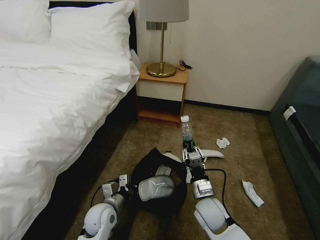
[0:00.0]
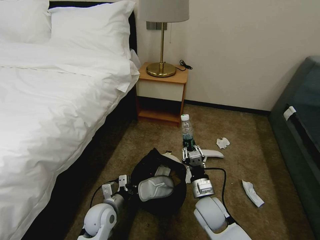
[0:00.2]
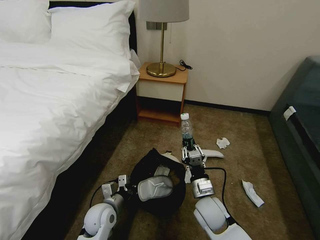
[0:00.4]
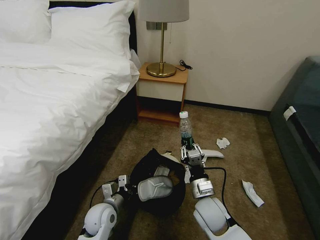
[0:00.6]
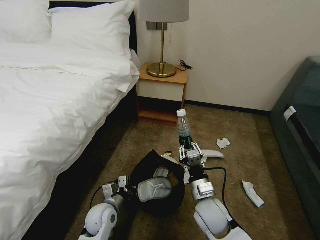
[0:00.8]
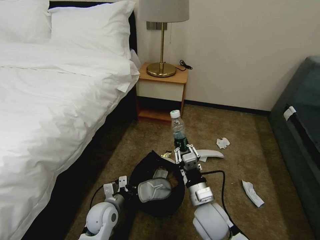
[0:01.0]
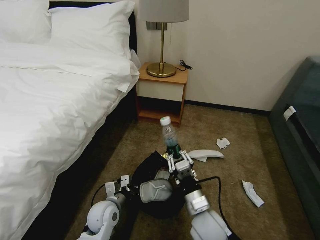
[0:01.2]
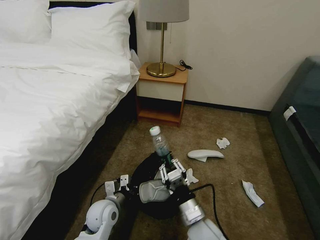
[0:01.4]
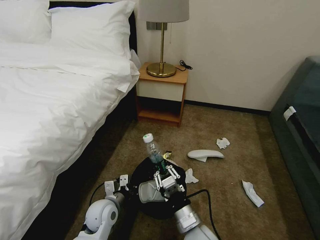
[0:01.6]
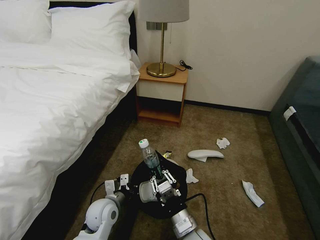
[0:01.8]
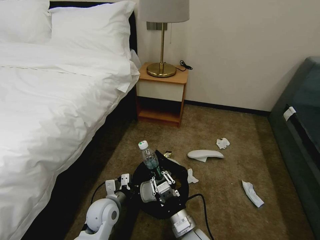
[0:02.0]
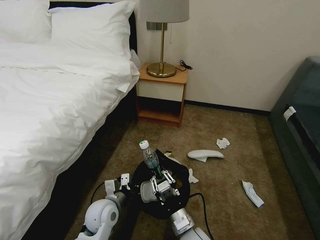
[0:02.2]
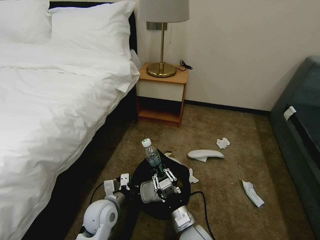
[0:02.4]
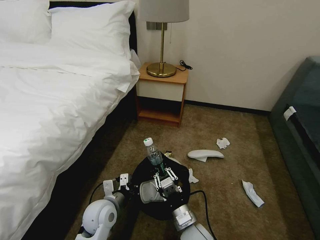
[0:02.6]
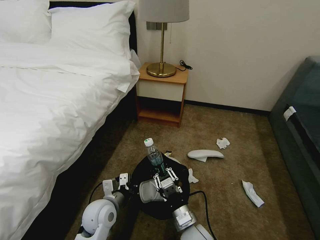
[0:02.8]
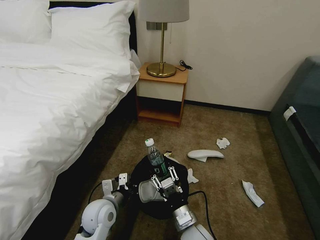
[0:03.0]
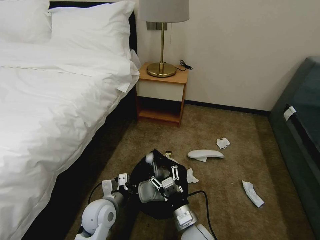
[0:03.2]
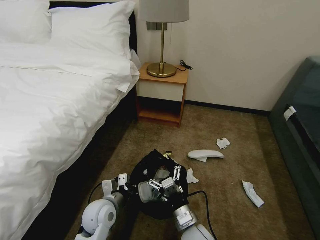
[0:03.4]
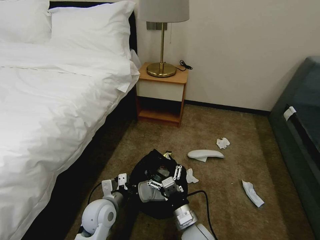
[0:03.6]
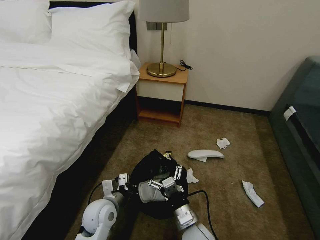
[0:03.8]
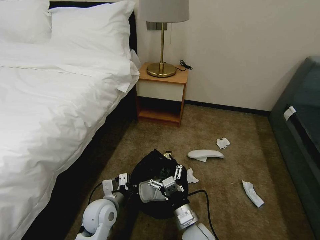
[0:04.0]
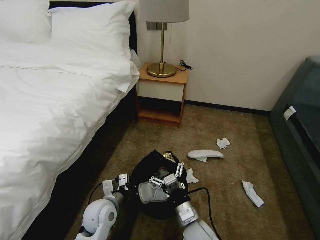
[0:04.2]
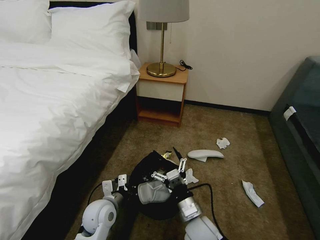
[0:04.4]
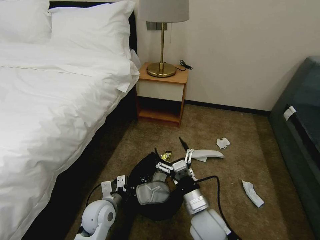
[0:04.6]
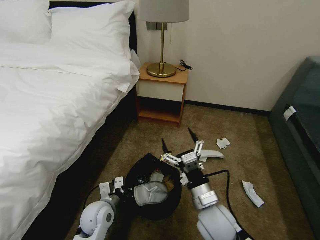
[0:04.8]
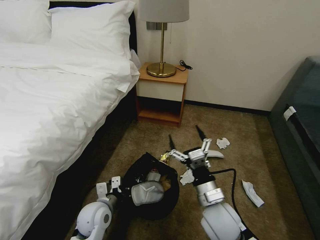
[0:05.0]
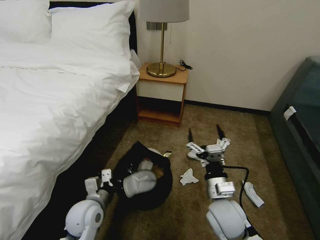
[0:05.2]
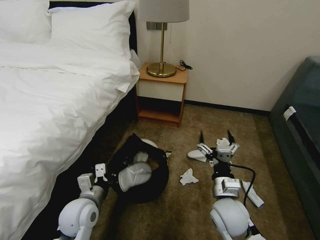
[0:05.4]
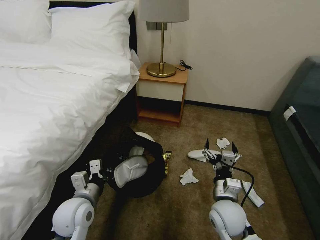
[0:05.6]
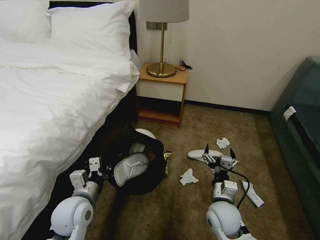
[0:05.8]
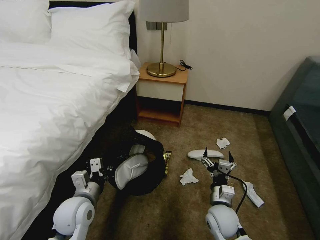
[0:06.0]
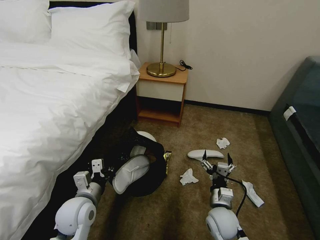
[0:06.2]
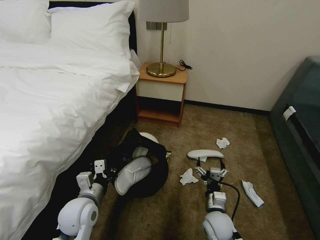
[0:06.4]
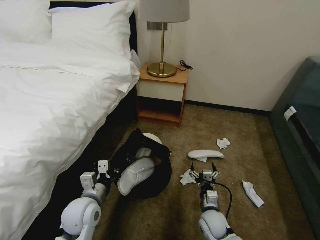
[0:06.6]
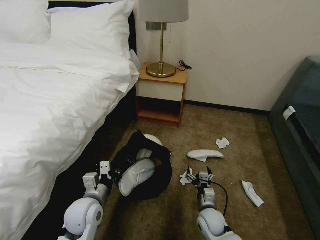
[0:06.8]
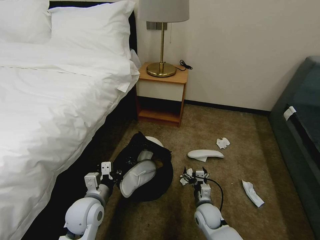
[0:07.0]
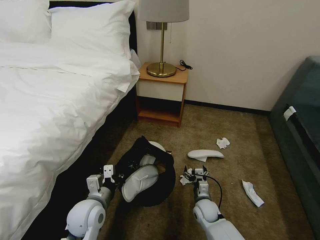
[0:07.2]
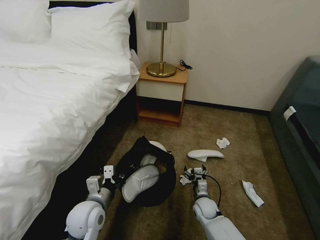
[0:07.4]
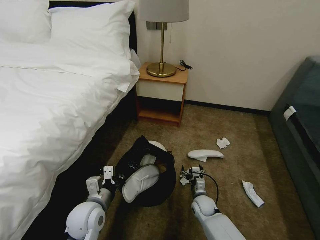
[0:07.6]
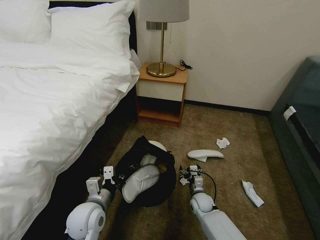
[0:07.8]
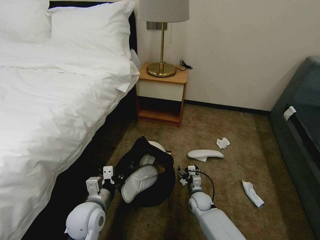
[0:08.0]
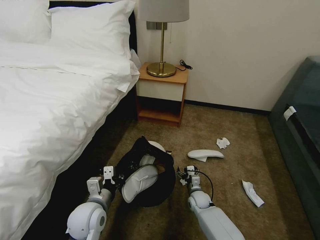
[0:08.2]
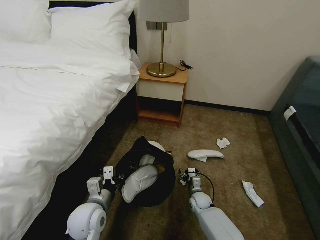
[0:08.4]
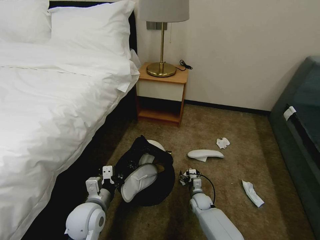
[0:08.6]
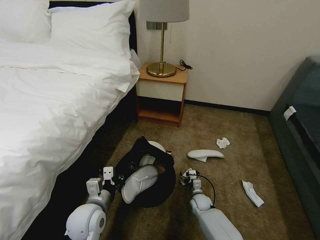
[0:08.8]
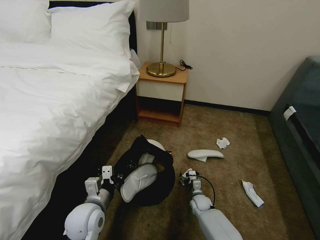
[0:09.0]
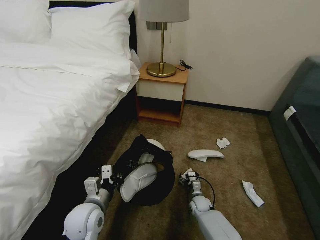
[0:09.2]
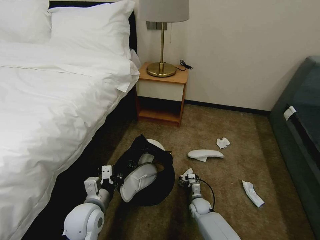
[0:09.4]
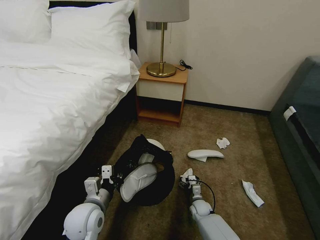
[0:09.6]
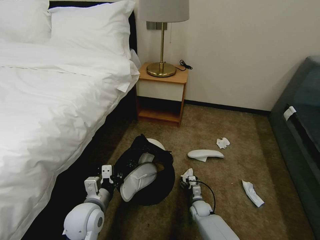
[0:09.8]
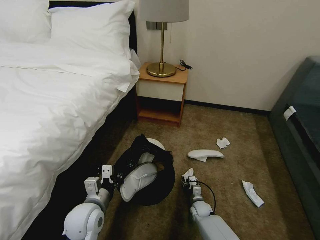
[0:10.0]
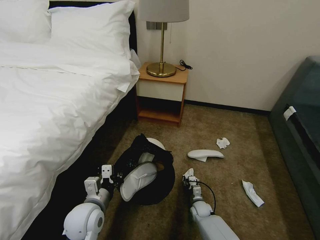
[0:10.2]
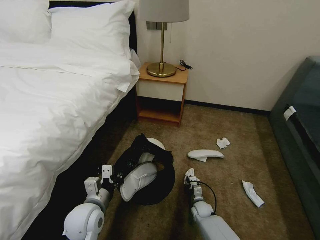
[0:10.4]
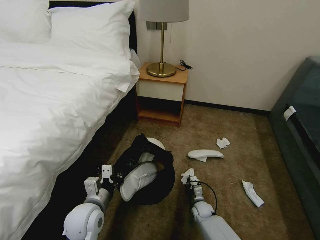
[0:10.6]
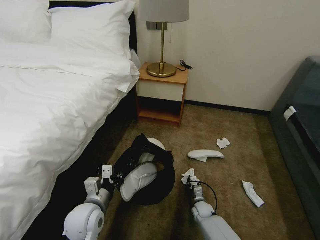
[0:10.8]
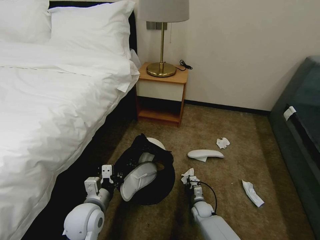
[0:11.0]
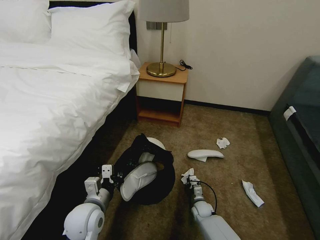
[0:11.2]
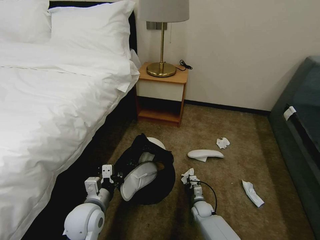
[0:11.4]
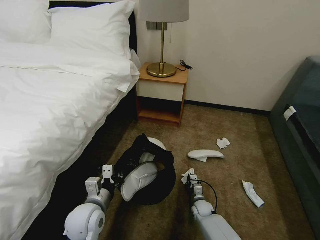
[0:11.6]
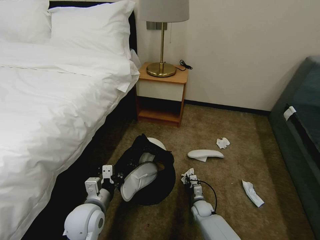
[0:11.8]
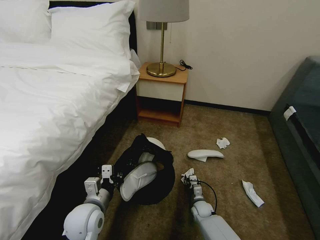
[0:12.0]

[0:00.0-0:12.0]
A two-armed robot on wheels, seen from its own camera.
Task of the whole recording: Pick up the trash bin, then pick up the garbage on the floor and place it into the trash bin.
0:00.0 to 0:01.6: The right gripper heads backward and to the left, covering some 10 cm.
0:01.6 to 0:03.0: There are only small adjustments of the grippers.
0:03.0 to 0:04.4: The right gripper opens its fingers.
0:04.4 to 0:06.0: The left gripper moves upward and to the left, approximately 10 cm. Meanwhile the right gripper is displaced to the right by roughly 10 cm, and reaches about 5 cm upward, then returns.
0:06.0 to 0:07.6: The right gripper moves downward and forward, roughly 15 cm.
0:07.6 to 0:09.0: The right gripper goes about 5 cm downward.
0:09.0 to 0:10.4: The right gripper closes its fingers.
0:10.4 to 0:12.0: Both grippers stay about where they are.

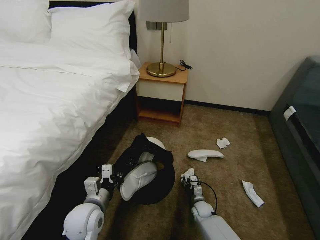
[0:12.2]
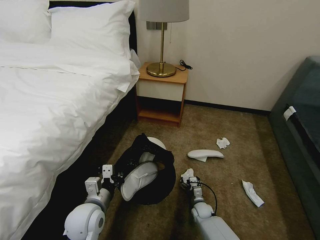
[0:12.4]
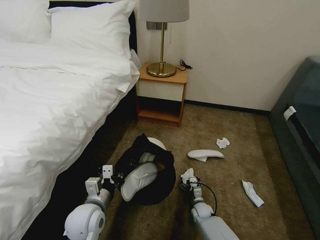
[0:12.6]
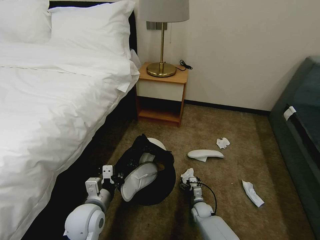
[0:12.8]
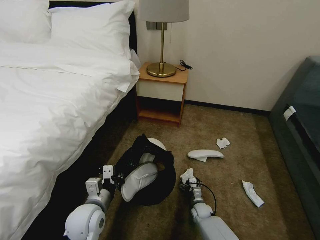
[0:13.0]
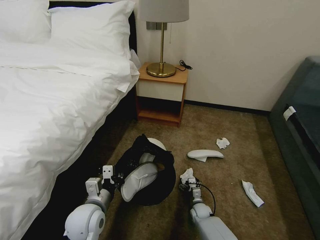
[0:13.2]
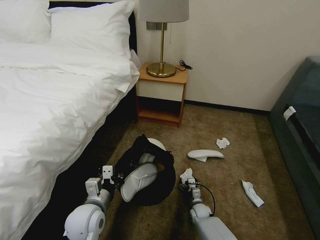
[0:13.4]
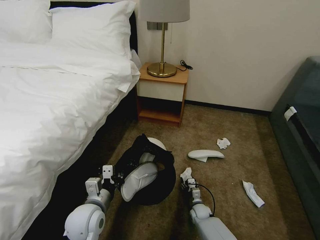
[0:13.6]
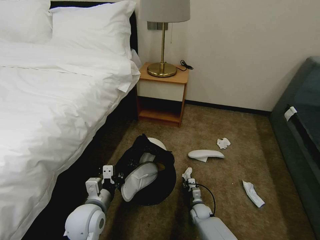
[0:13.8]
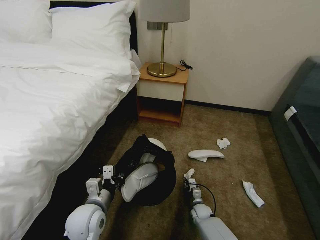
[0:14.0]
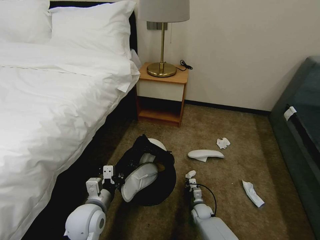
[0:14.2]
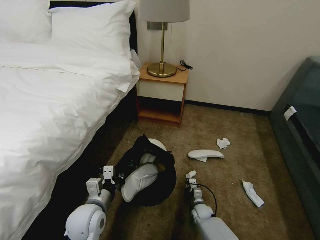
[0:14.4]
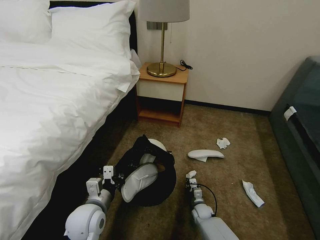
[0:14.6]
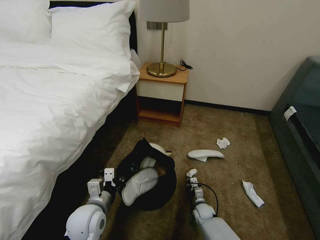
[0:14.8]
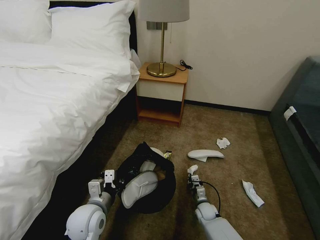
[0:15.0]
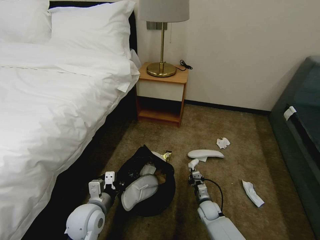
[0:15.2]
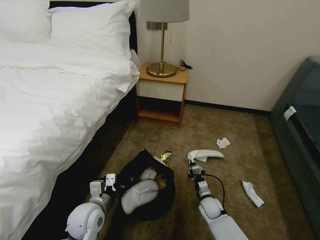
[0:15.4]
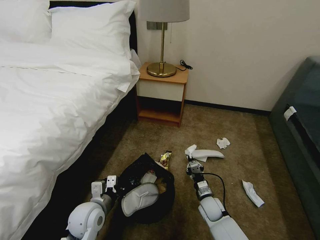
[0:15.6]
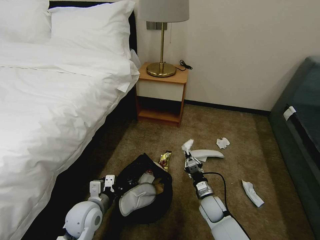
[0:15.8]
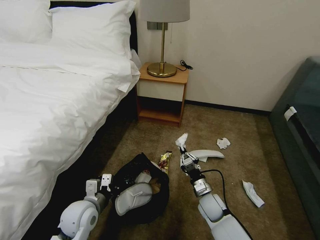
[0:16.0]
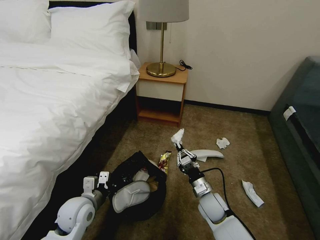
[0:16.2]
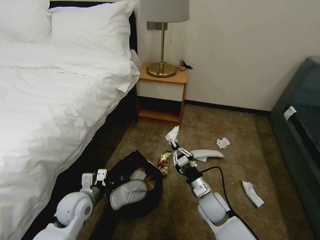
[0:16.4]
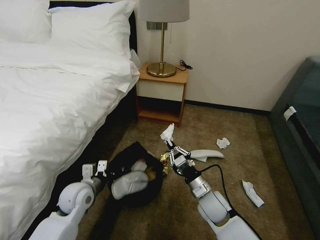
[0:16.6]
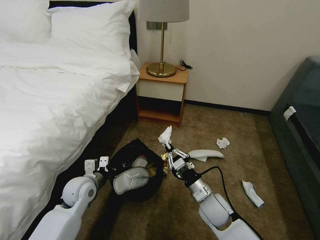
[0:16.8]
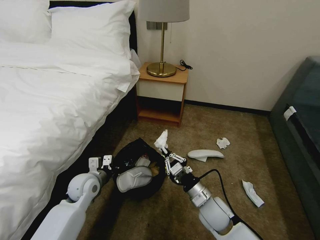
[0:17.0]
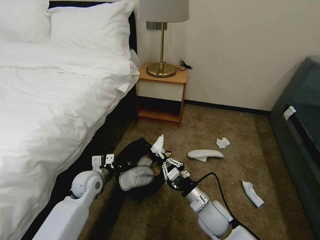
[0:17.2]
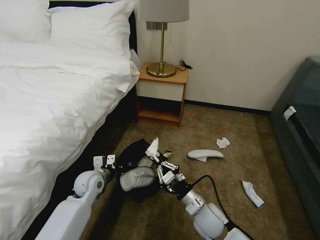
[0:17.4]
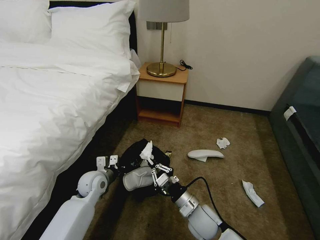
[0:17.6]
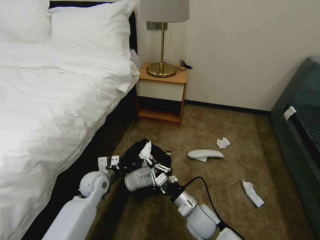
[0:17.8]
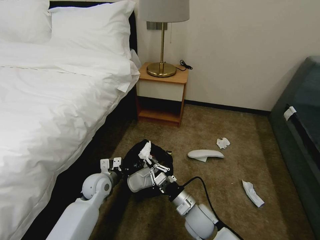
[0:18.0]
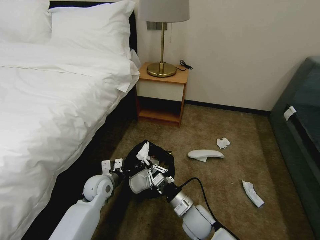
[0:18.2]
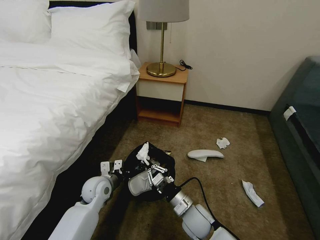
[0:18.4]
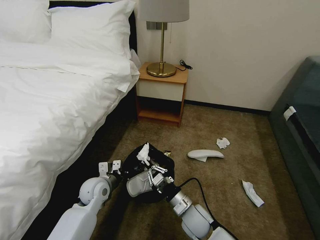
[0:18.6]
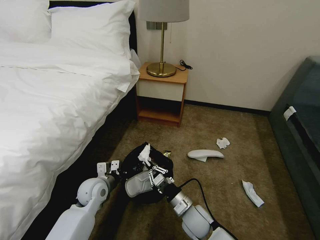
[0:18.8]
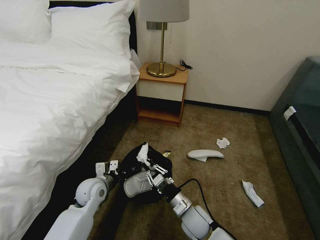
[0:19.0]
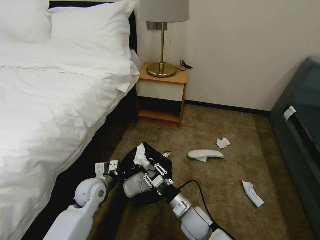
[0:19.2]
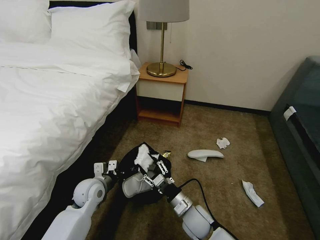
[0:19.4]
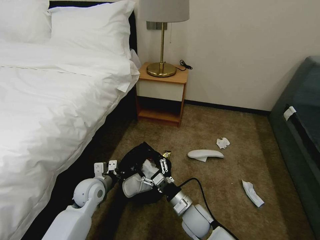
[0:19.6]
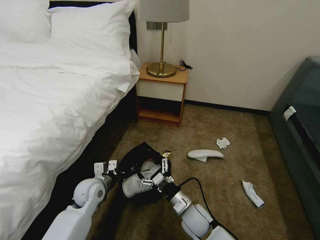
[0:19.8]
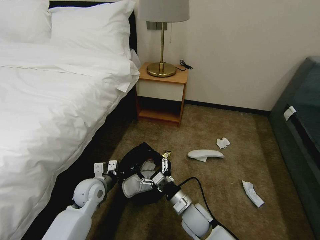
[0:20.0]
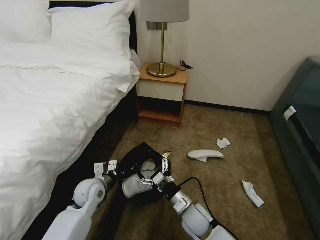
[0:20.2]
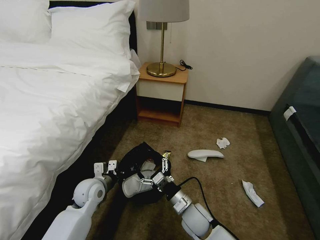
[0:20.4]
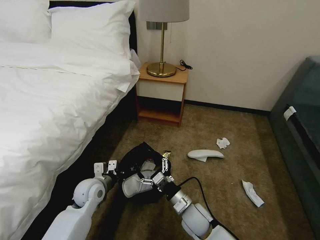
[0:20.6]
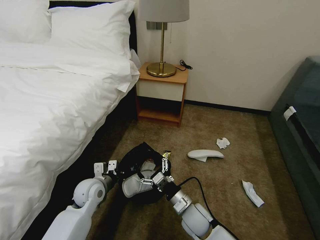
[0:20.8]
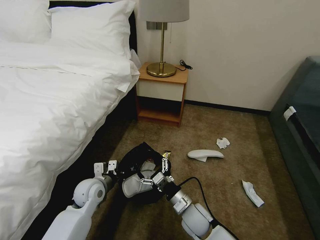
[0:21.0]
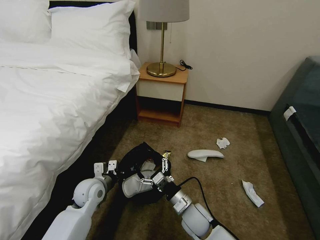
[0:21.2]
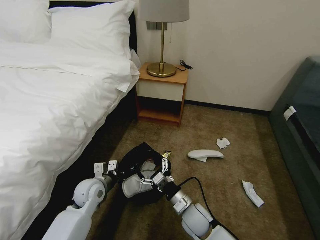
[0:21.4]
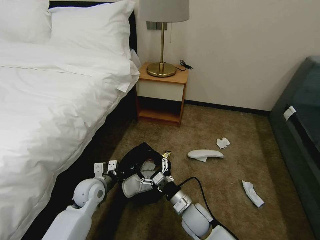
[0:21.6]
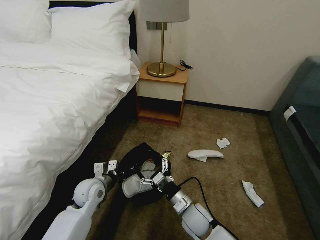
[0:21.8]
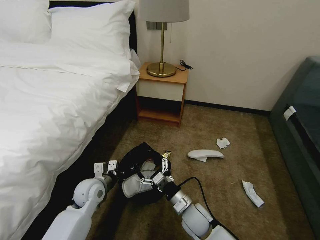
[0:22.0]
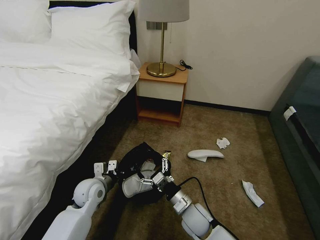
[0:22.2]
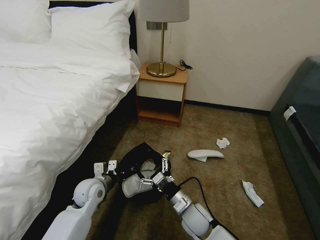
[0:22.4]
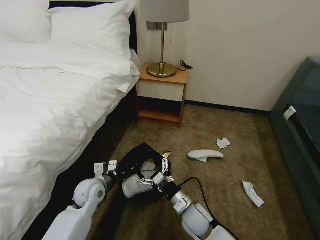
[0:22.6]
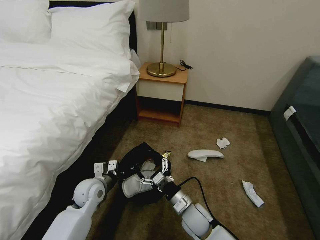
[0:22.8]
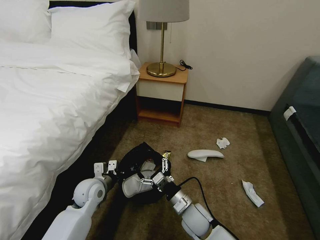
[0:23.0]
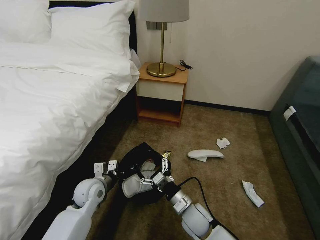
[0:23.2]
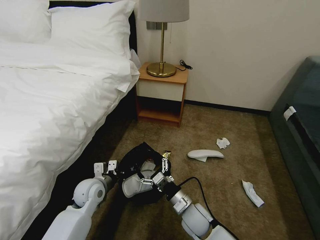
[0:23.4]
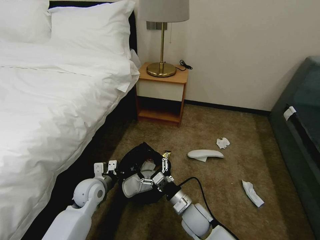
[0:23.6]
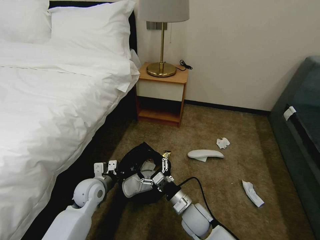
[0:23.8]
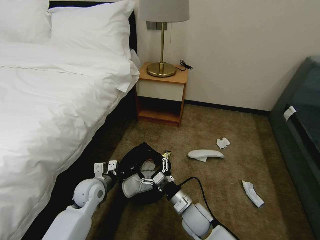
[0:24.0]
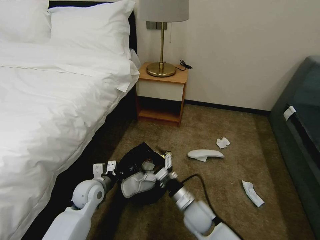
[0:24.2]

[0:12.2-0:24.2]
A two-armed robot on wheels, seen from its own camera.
Task of the whole recording: Pick up the trash bin, then pick up the garbage on the floor and place it into the trash bin.
0:12.2 to 0:13.8: The grippers make only small movements.
0:13.8 to 0:15.2: The right gripper shifts by some 5 cm, and closes.
0:15.2 to 0:16.6: The right gripper goes approximately 20 cm upward. Meanwhile the left gripper heads forward and to the left, covering some 10 cm.
0:16.6 to 0:18.2: The right gripper moves to the left, approximately 5 cm, while the left gripper ends up about 10 cm from where it was.
0:18.2 to 0:19.8: The right gripper opens up.
0:19.8 to 0:24.2: The two grippers keep their place.
